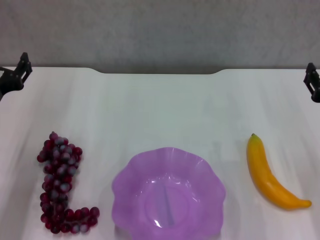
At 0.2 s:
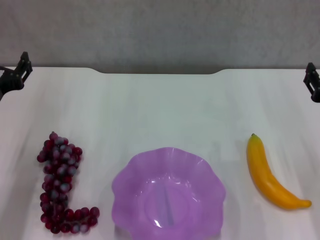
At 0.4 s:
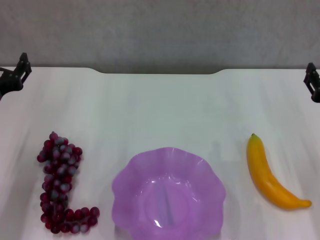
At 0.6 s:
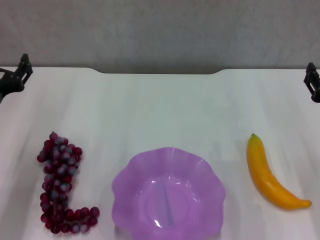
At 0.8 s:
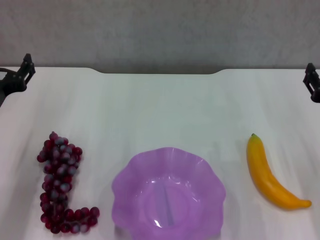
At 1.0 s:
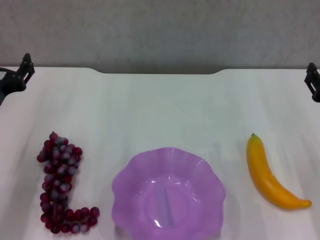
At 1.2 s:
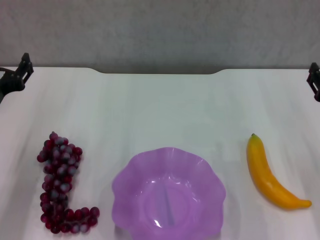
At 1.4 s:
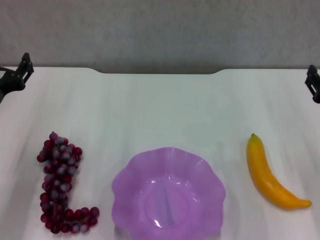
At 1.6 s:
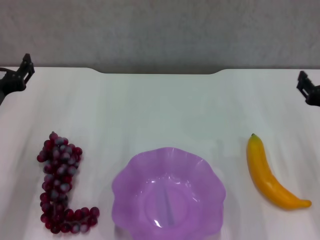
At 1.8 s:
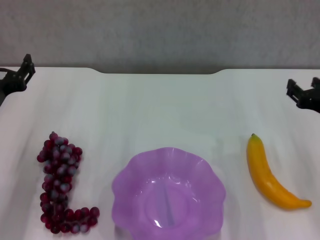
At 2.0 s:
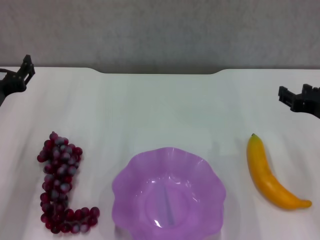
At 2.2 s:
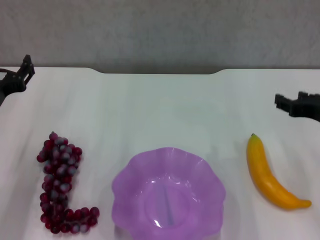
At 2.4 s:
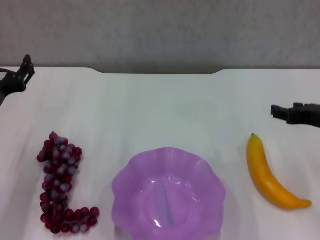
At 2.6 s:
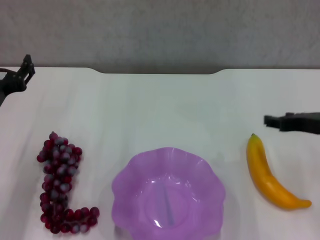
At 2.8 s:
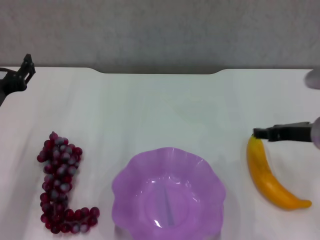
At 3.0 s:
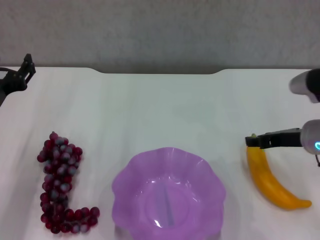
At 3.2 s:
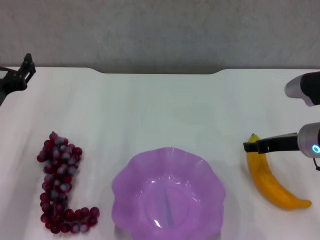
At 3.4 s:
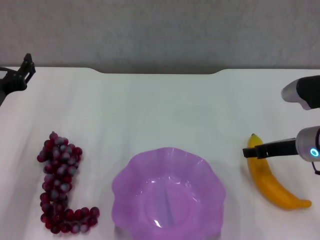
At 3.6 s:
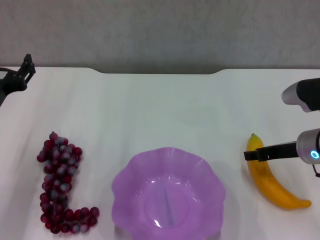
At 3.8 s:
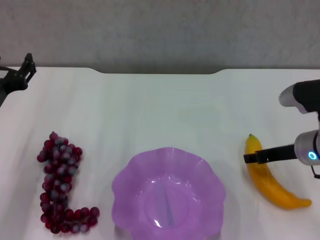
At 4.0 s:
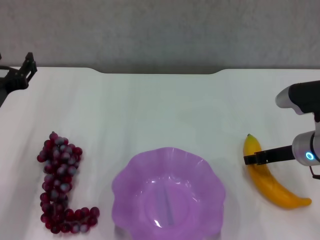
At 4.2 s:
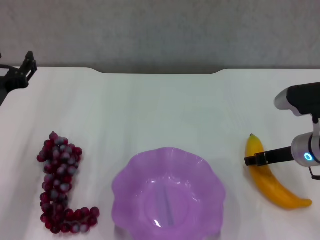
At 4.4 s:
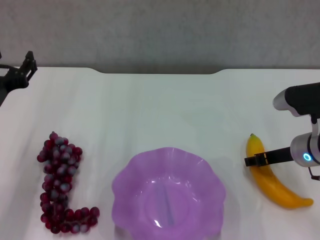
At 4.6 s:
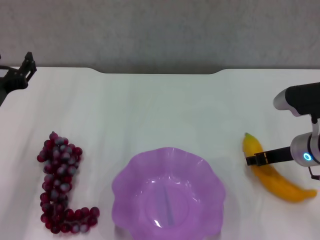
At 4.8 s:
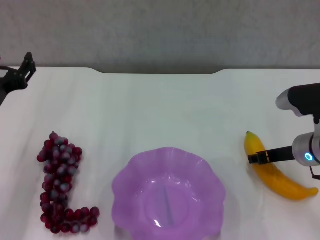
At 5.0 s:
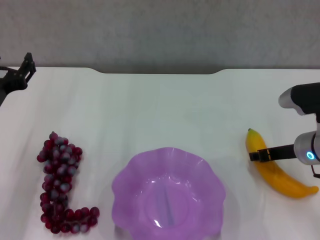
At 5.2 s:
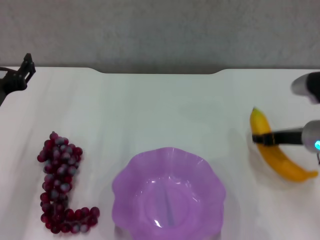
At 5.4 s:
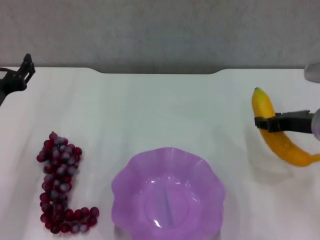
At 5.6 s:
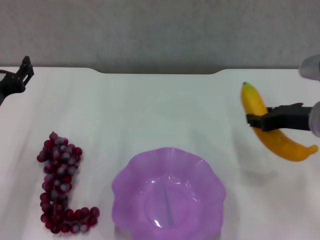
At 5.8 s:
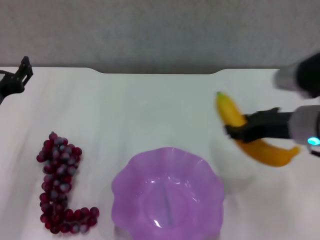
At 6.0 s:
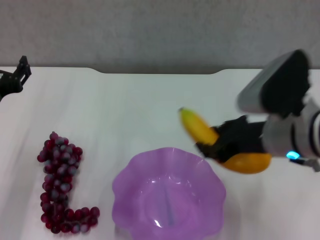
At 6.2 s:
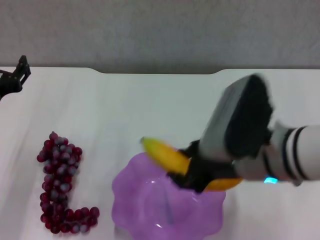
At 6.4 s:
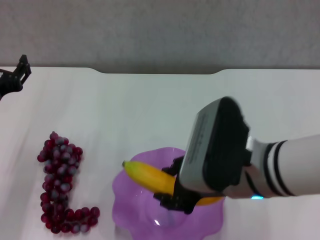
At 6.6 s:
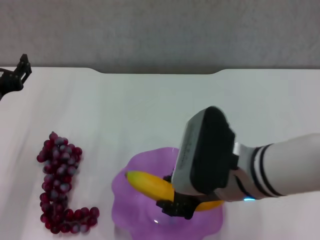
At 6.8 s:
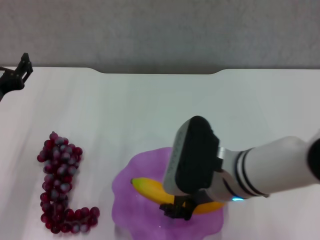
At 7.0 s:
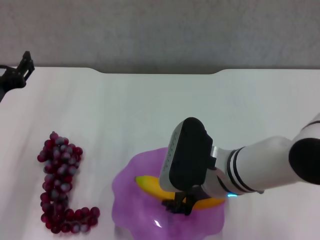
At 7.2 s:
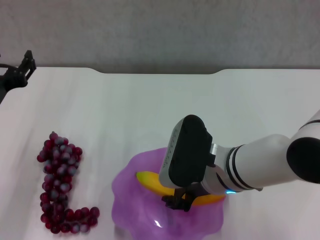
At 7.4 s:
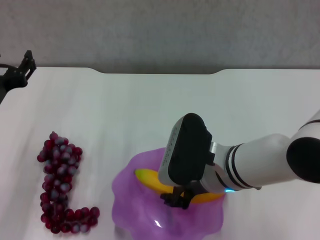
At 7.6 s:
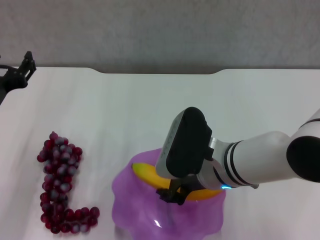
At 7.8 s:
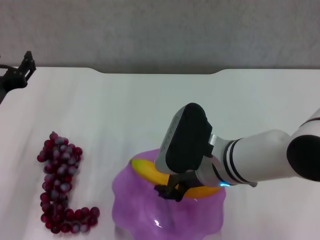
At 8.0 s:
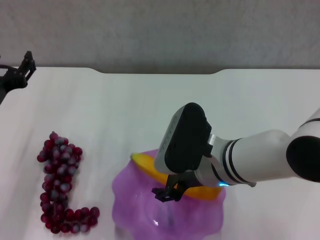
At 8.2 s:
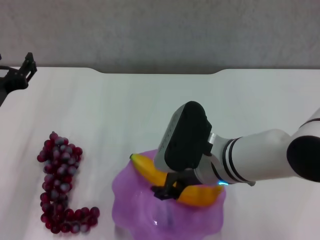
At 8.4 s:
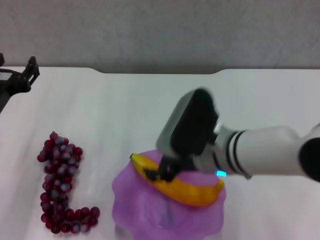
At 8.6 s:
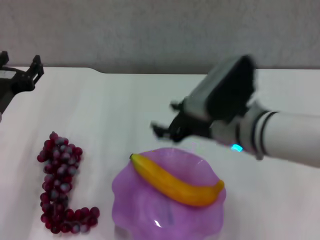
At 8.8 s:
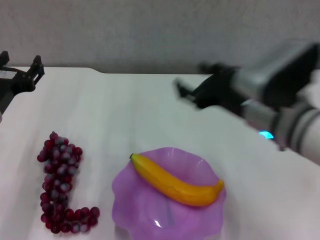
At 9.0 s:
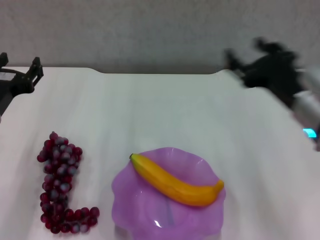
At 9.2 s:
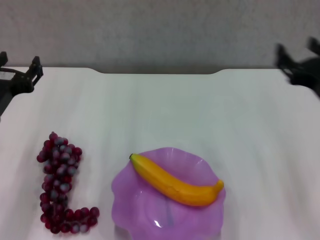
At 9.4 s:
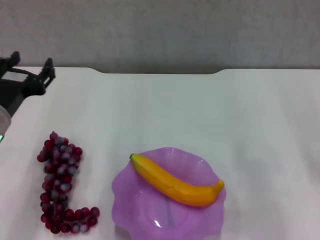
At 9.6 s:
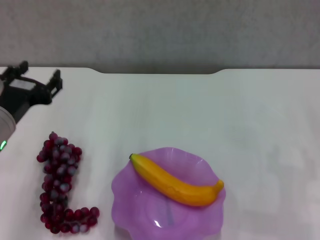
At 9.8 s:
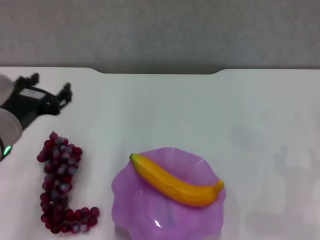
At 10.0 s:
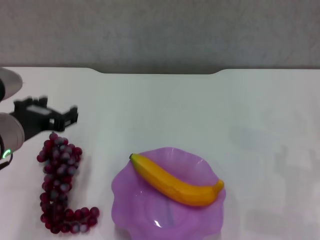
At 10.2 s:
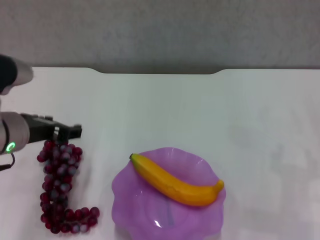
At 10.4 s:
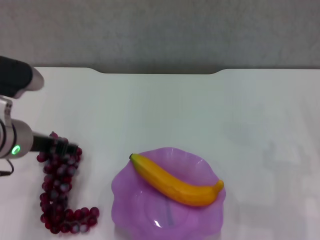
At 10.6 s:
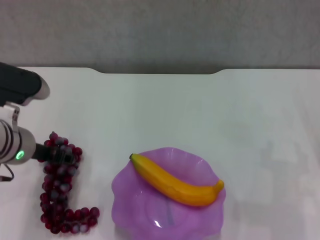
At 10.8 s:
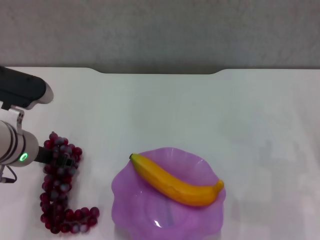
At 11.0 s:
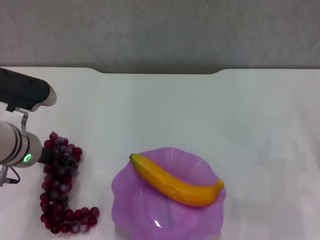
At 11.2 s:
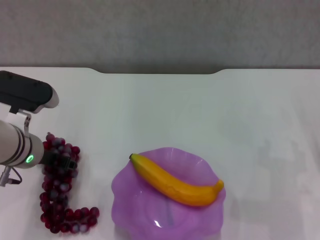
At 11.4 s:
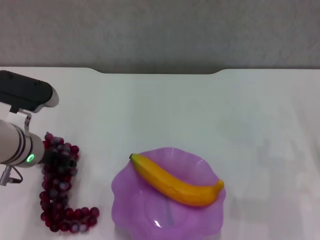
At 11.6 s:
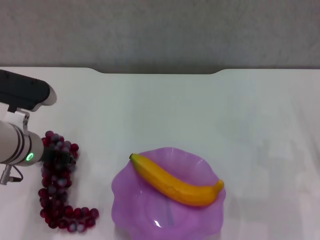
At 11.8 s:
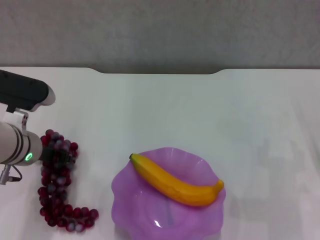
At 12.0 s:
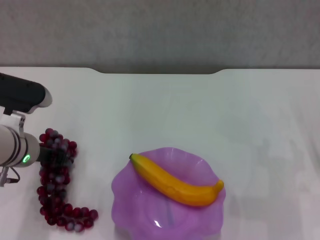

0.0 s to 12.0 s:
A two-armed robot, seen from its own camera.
Step, 0.0 to 4.6 s: Grasp the banana with right gripper.
Step, 4.8 to 8.4 s: Place the banana in the purple plate with right gripper.
0.0 to 1.6 s: There are only small adjustments of the grippers.
1.6 to 3.0 s: The right gripper travels forward by roughly 5 cm.
3.0 to 4.4 s: There are only small adjustments of the grippers.
4.4 to 6.0 s: The right gripper is displaced upward, to the left and backward by roughly 15 cm, and closes.
6.0 to 7.6 s: The right gripper heads to the left and downward, covering approximately 10 cm.
7.6 to 9.0 s: The right gripper heads to the right and upward, covering approximately 10 cm, and opens.
9.0 to 10.4 s: The right gripper is displaced to the right and downward by approximately 15 cm.
10.4 to 12.0 s: The left gripper ends up some 5 cm from where it was, and closes its fingers.

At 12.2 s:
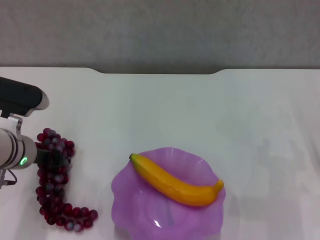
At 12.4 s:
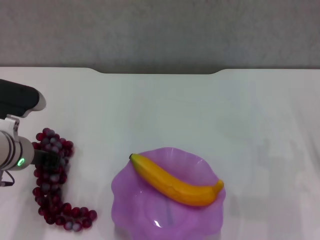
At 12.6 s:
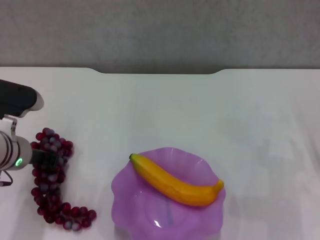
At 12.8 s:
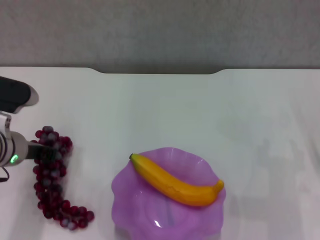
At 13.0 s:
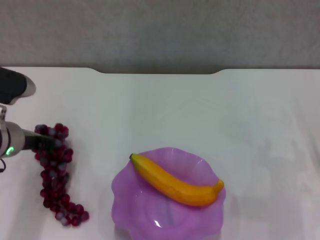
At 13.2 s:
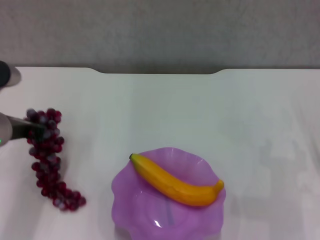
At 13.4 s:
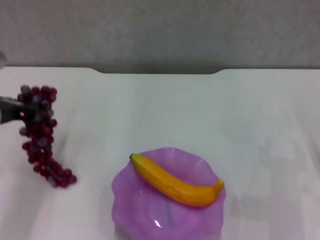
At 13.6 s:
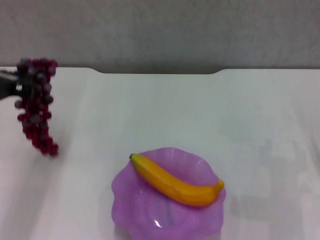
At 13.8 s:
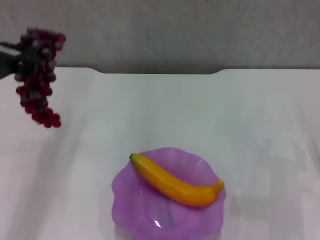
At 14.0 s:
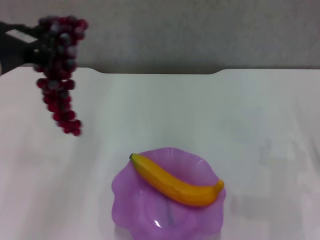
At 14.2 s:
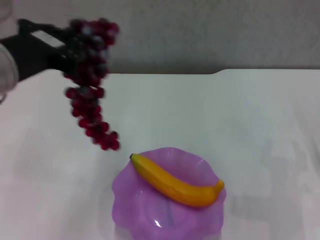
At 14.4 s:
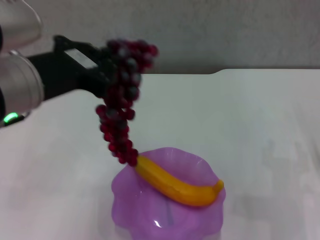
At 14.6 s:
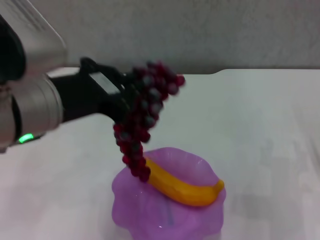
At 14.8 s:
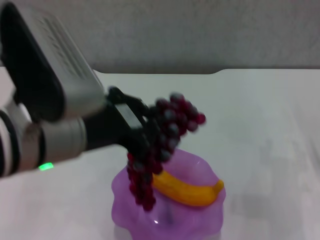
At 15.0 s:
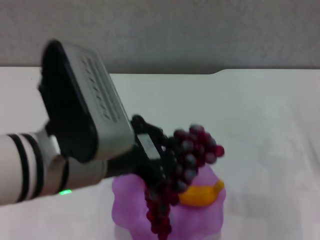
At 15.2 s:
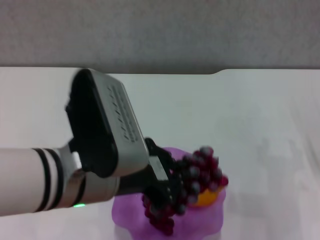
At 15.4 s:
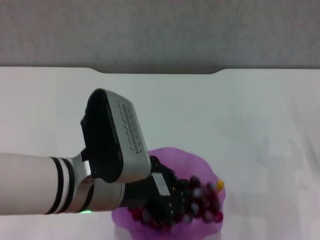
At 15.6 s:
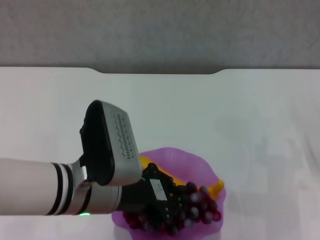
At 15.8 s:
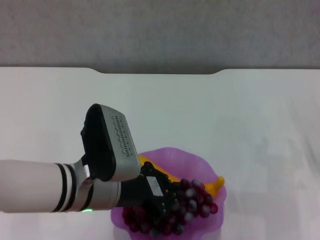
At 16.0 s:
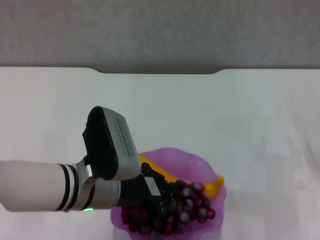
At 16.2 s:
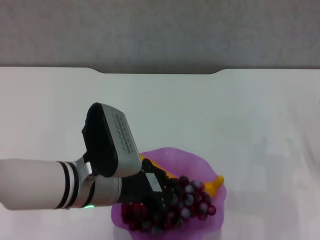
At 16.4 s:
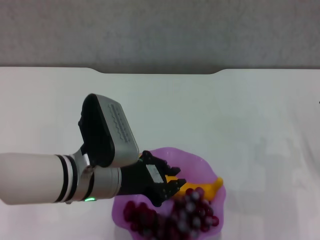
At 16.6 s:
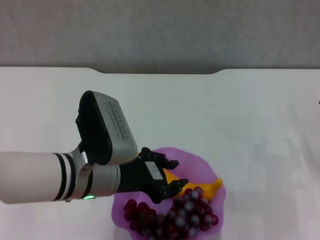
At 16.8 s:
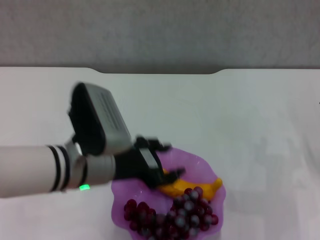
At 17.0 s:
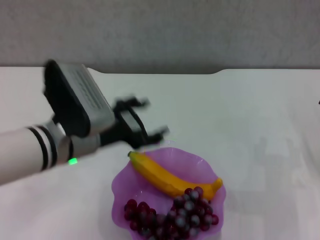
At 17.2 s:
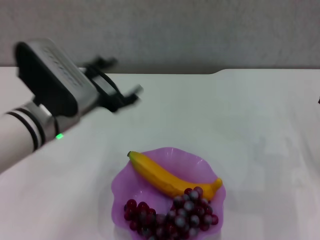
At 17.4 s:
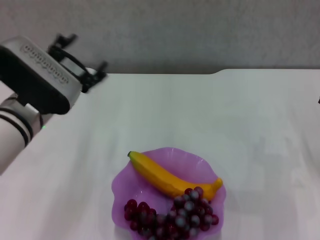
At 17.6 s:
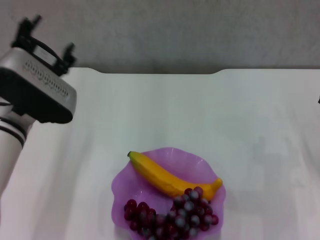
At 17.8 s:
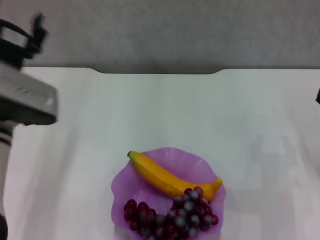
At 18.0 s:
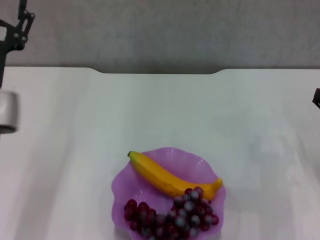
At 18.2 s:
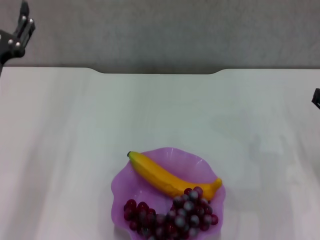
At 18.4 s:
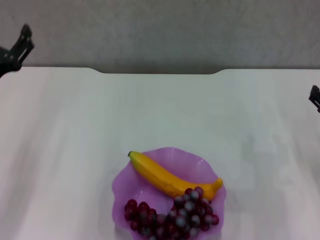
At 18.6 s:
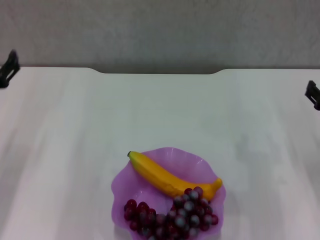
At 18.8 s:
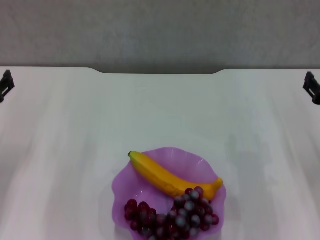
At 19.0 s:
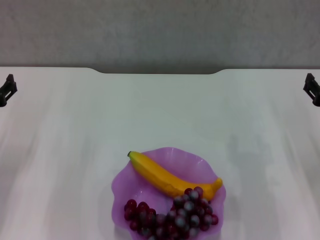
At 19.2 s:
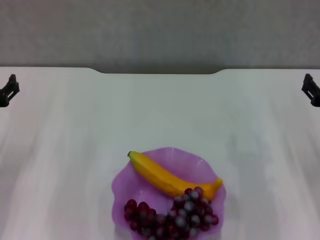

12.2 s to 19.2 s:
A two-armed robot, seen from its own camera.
Step, 12.6 to 16.6 s: Place the grape in the purple plate with left gripper.
12.2 to 13.6 s: The left gripper travels upward by some 10 cm.
13.6 to 15.0 s: The left gripper heads to the right and backward, covering about 15 cm.
15.0 to 16.4 s: The left gripper shifts approximately 10 cm downward and forward.
16.4 to 17.8 s: The left gripper goes roughly 10 cm to the left, and opens.
17.8 to 19.2 s: The left gripper moves to the left and downward, roughly 10 cm.
